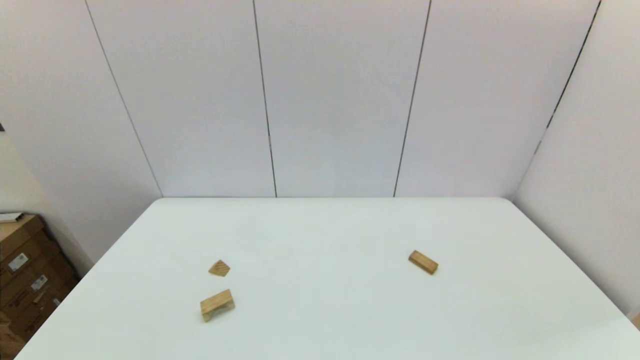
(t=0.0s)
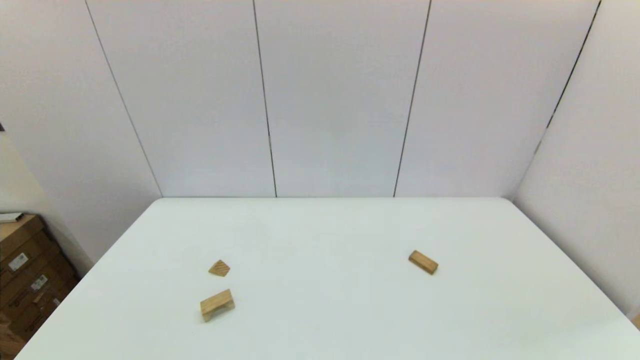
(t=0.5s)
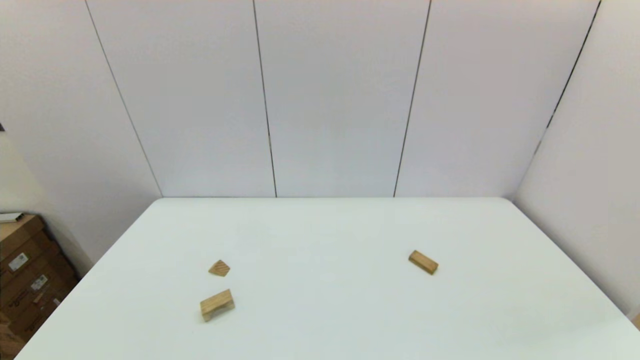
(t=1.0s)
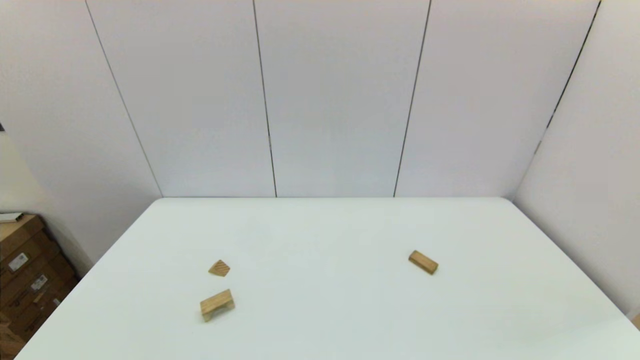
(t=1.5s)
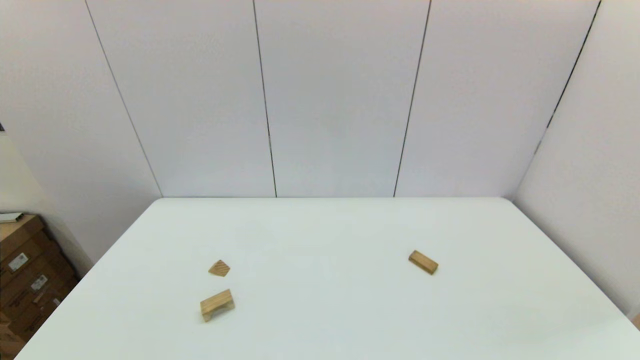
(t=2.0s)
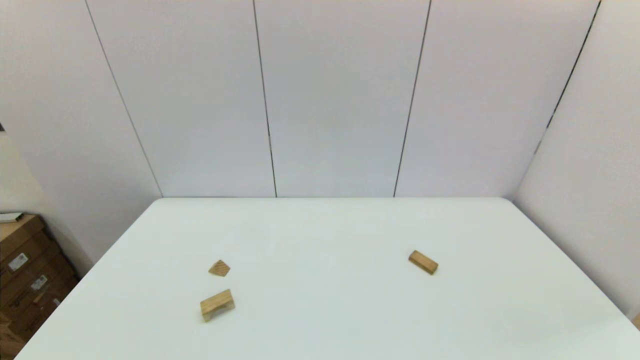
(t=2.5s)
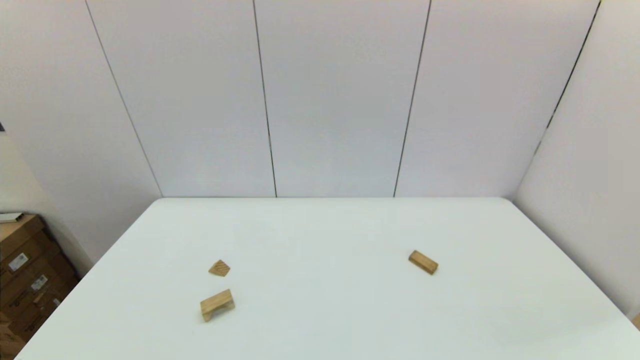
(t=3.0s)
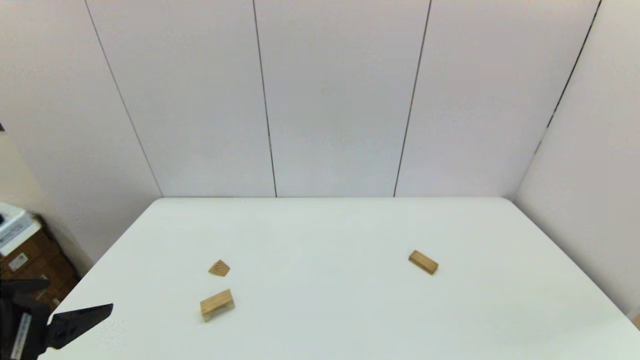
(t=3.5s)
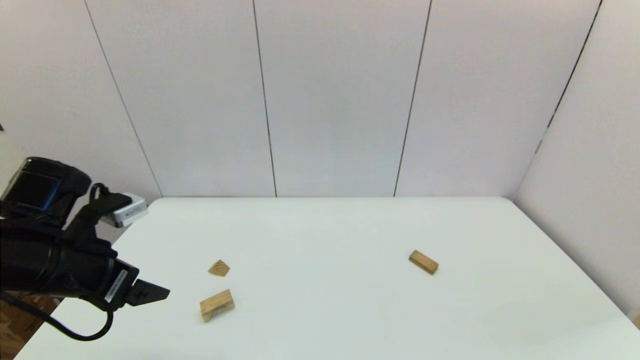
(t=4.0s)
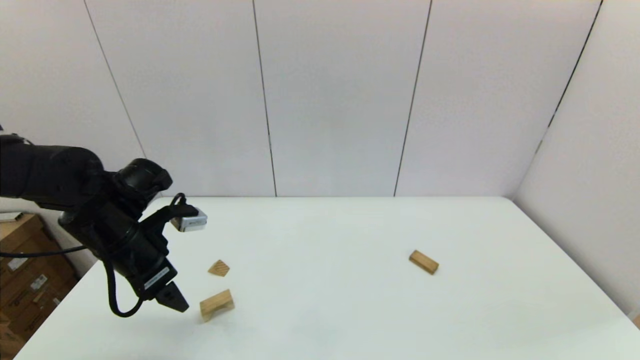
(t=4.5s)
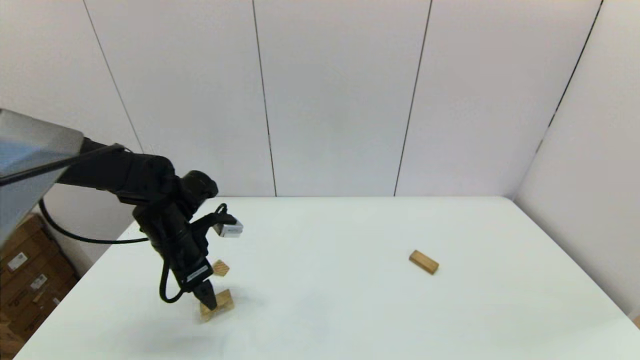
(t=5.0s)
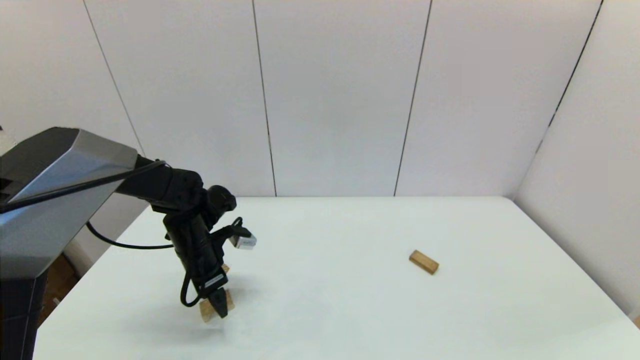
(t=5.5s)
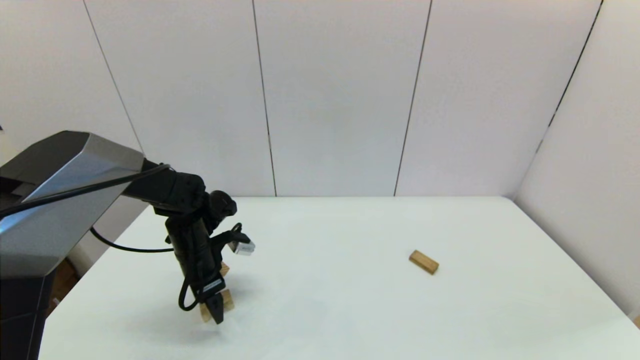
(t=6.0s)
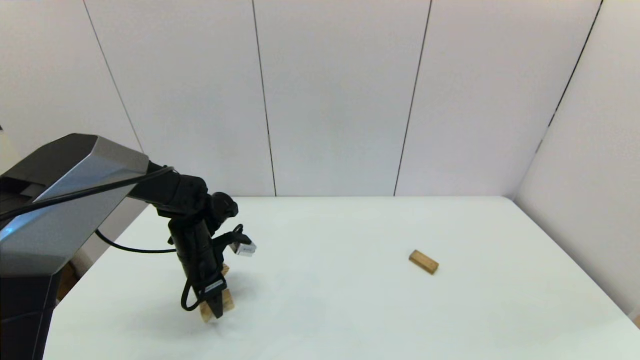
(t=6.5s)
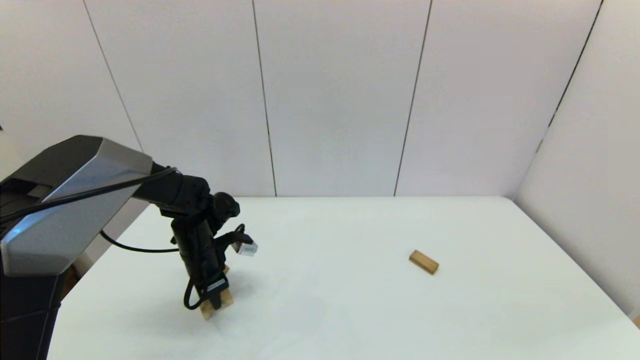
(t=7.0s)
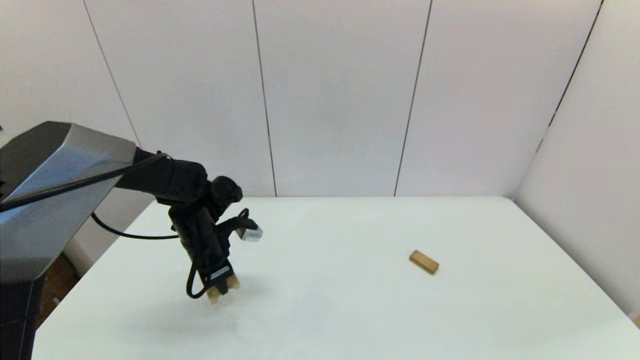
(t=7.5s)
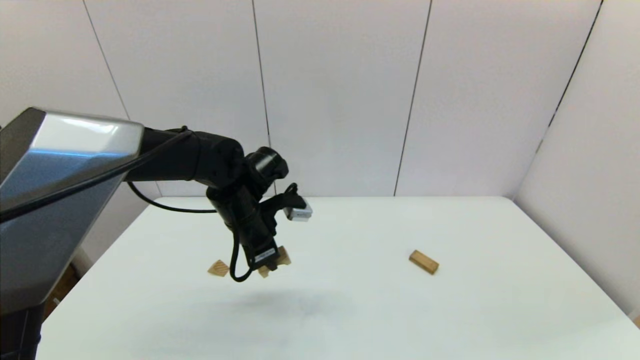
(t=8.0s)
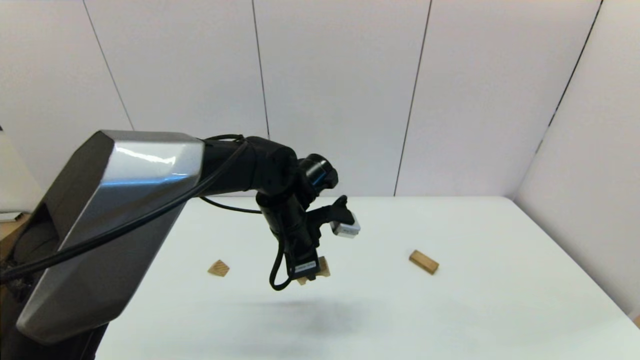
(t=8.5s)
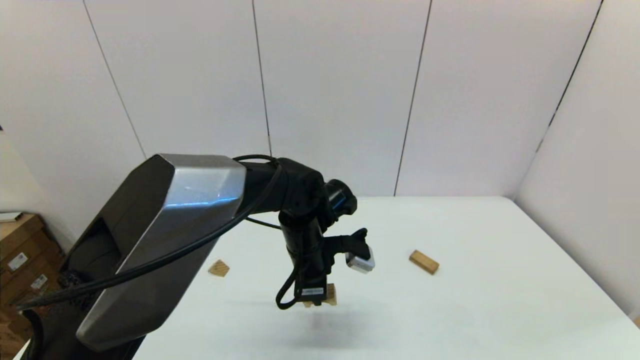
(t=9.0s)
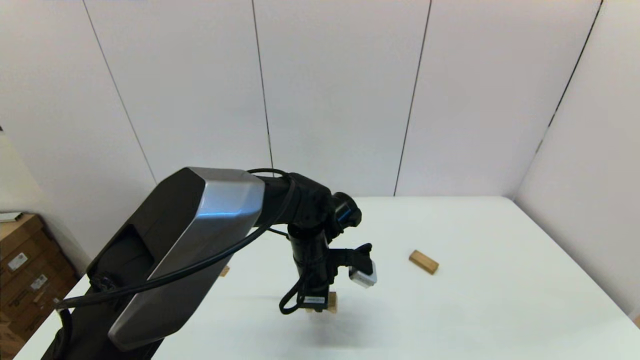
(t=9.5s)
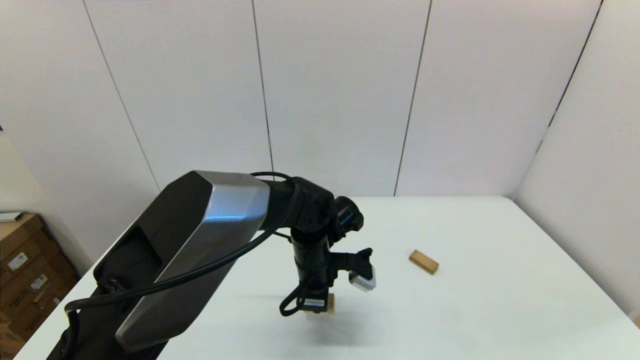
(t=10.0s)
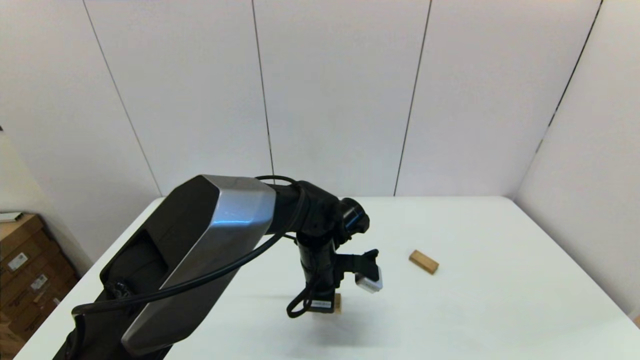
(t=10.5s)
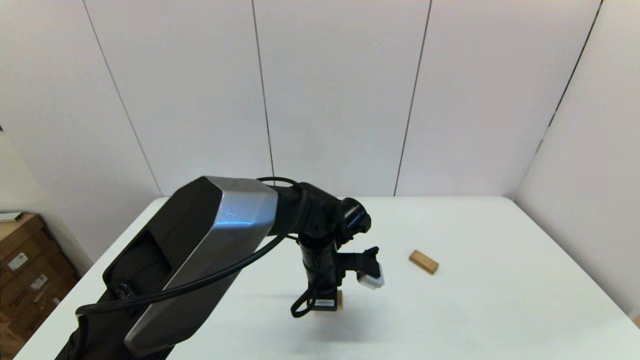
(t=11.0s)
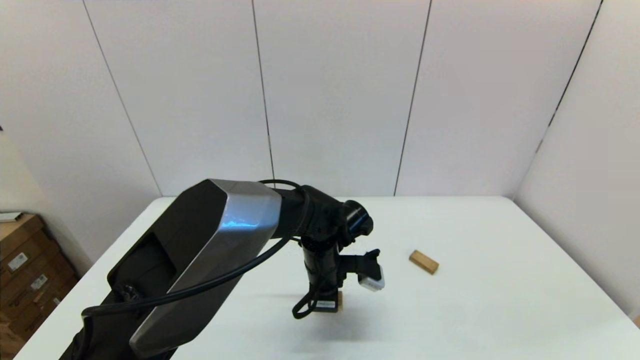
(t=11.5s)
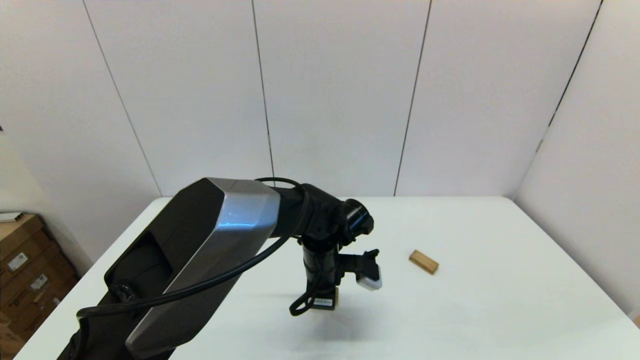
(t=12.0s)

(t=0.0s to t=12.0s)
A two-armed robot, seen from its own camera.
Task of the whole recording: place the arched building blocks in the center of the table, set up the rectangular building blocks, and then set up the triangular building blocks.
Step, t=3.5s - t=6.5s: Grasp the arch-shaped block with the left gripper.
t=0.0s - t=2.0s: Both grippers stay about where they are.
t=2.0s - t=4.0s: The left gripper moves forward and upward, about 25 cm.
t=4.0s - t=6.0s: The left gripper goes about 20 cm forward, downward and to the right.
t=6.0s - t=8.0s: The left gripper heads to the right and upward, covering roughly 15 cm, and closes its fingers.
t=8.0s - t=10.0s: The left gripper is displaced to the right and downward by some 15 cm.
t=10.0s - t=12.0s: There are only small adjustments of the grippers.

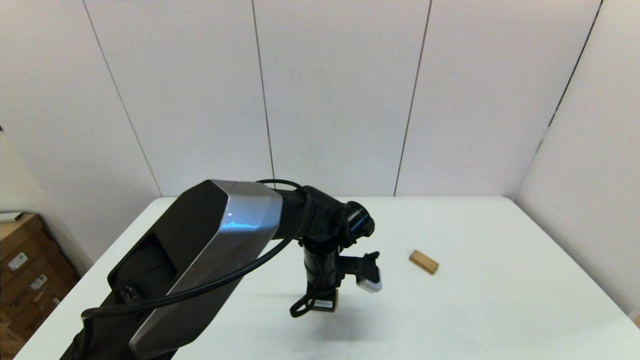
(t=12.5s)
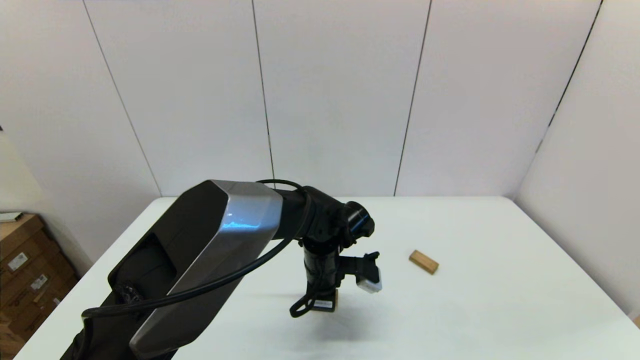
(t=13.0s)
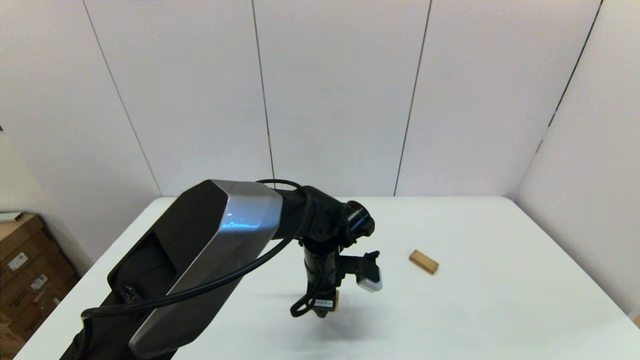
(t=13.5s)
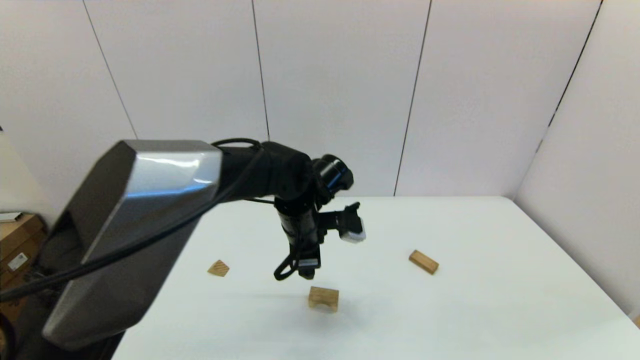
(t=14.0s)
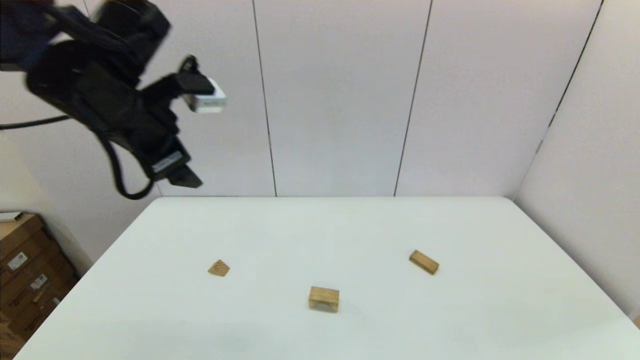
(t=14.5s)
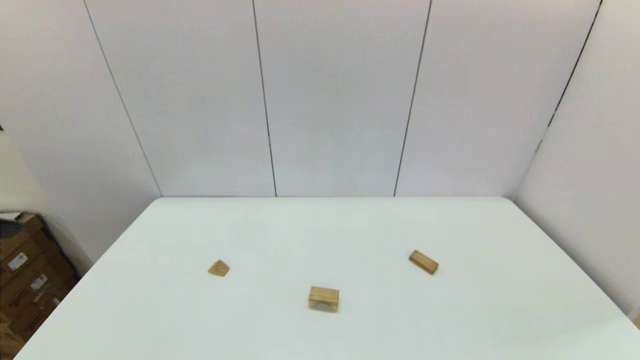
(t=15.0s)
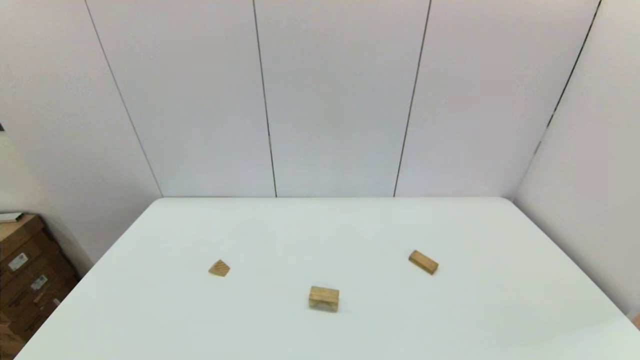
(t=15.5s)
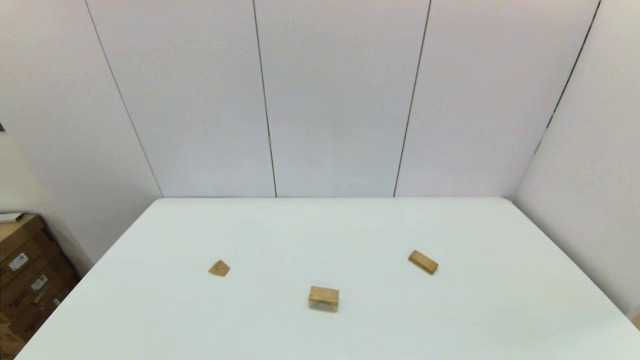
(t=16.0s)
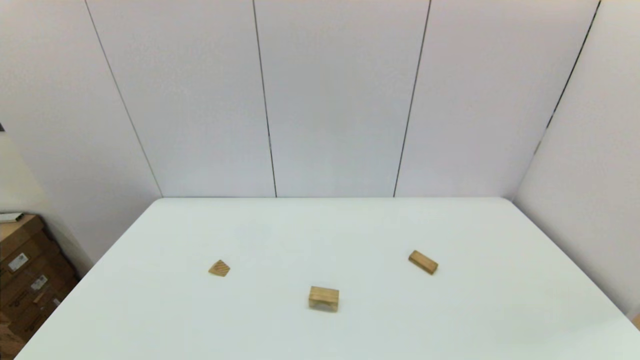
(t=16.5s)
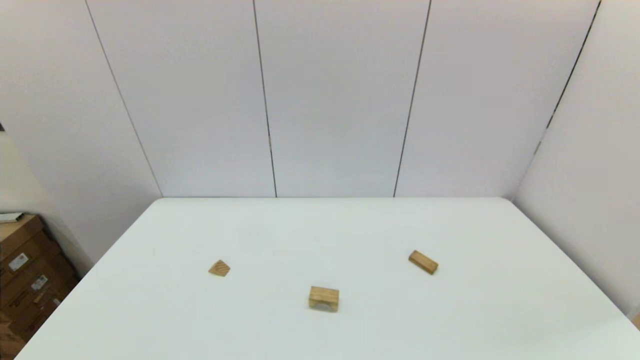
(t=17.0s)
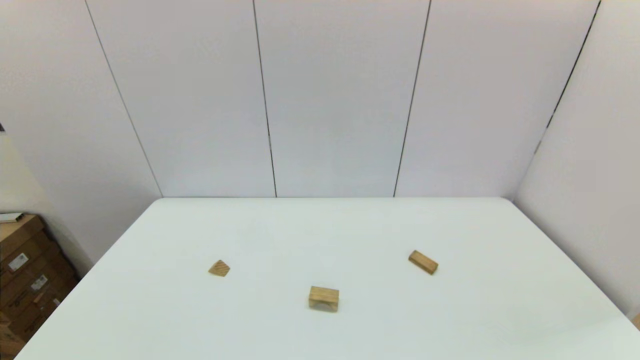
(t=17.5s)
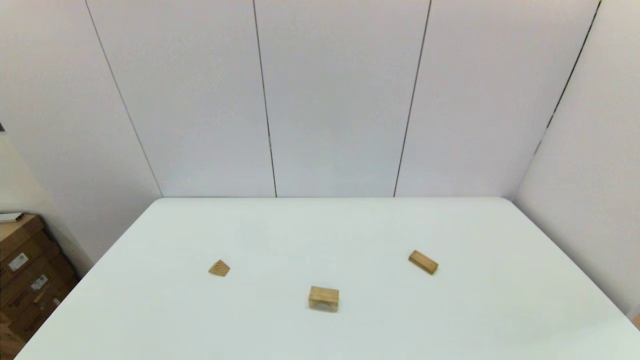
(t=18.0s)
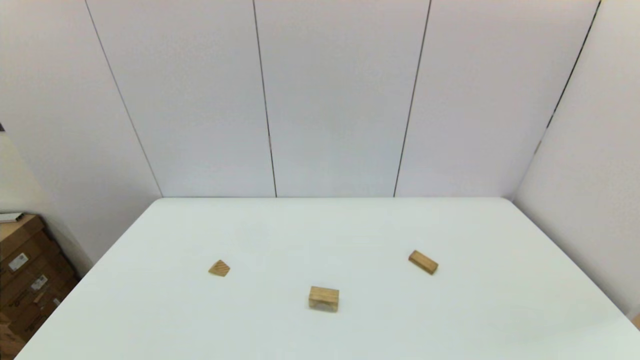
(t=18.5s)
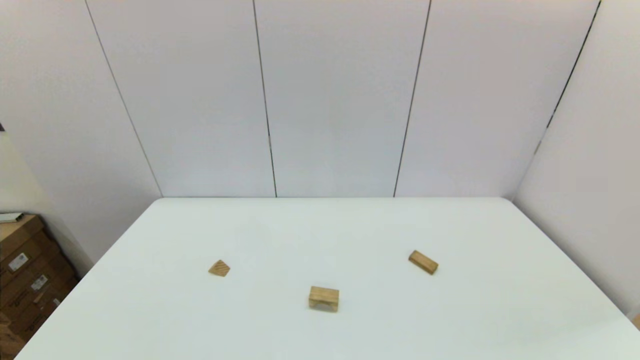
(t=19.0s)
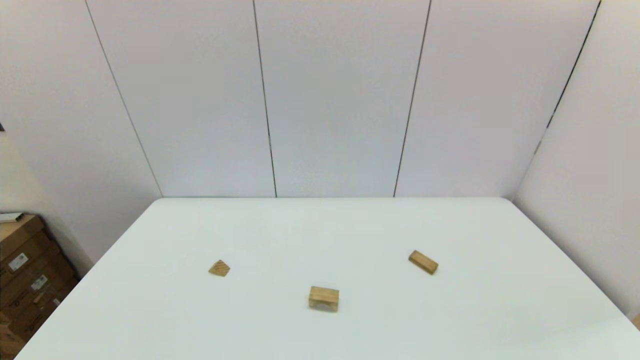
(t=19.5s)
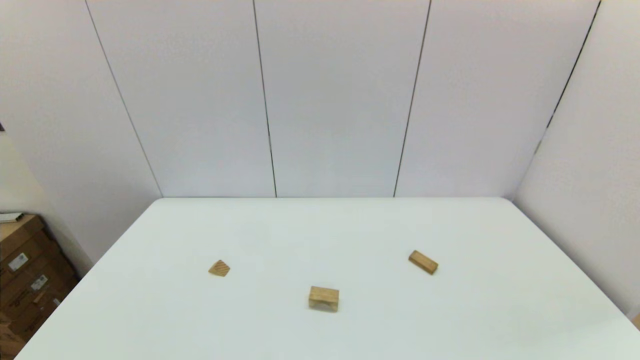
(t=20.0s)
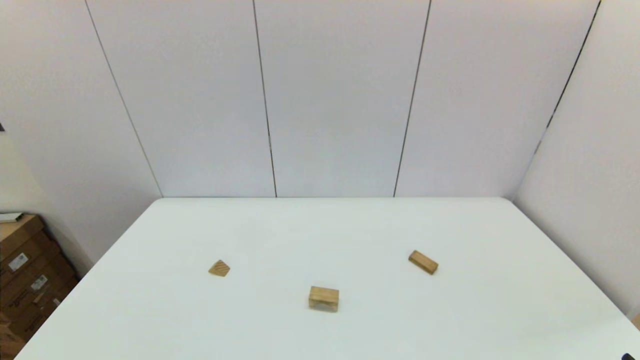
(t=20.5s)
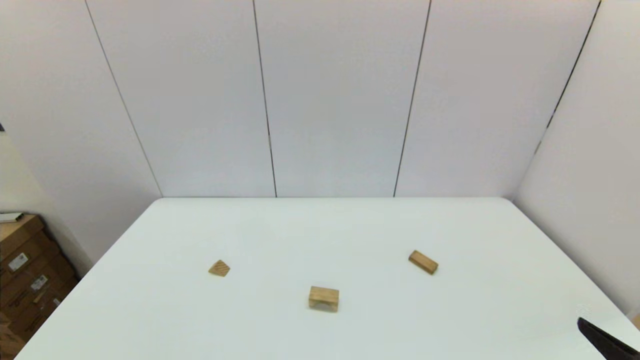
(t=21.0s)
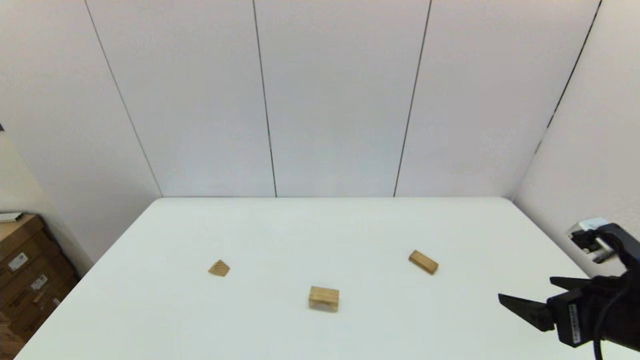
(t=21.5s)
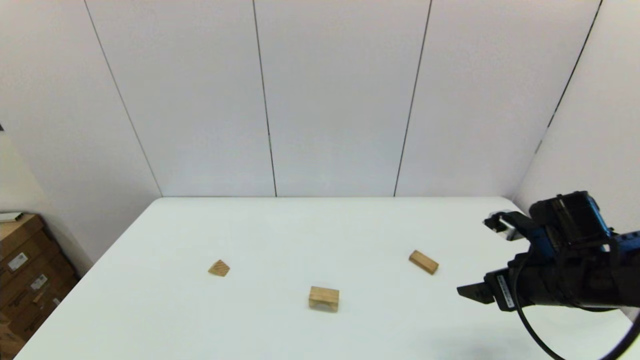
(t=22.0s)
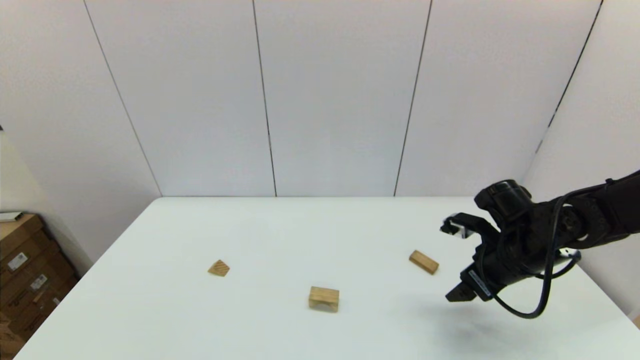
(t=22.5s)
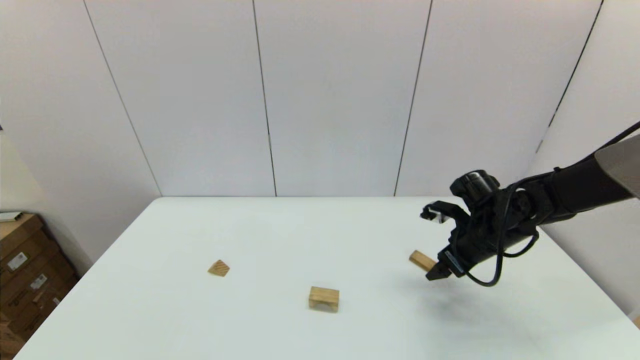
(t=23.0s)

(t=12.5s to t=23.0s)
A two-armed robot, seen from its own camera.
Task of the whole recording: place the arched building blocks in the center of the table, set up the rectangular building blocks, and then set up the triangular building blocks.
t=12.5s - t=14.5s: The left gripper moves upward and to the left, approximately 35 cm, and opens up.
t=14.5s - t=16.5s: The left gripper goes about 40 cm backward.
t=21.0s - t=23.0s: The right gripper shifts approximately 30 cm forward.
